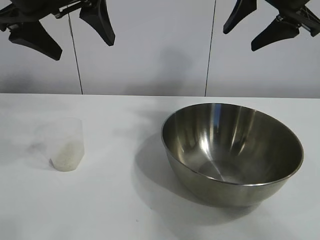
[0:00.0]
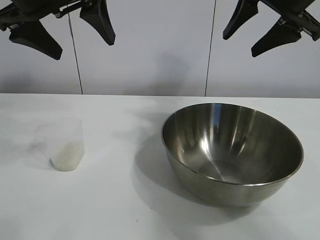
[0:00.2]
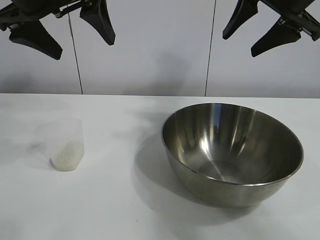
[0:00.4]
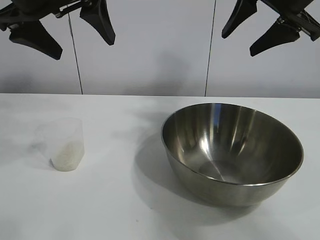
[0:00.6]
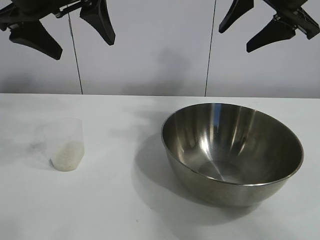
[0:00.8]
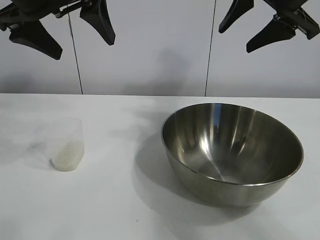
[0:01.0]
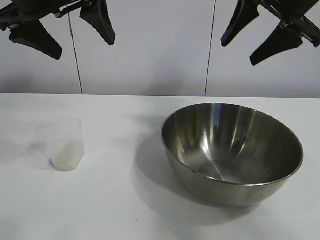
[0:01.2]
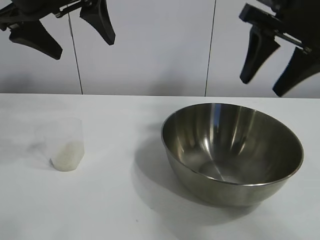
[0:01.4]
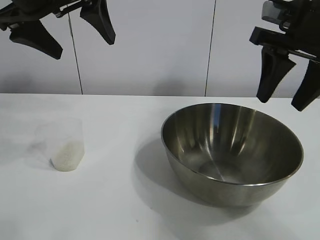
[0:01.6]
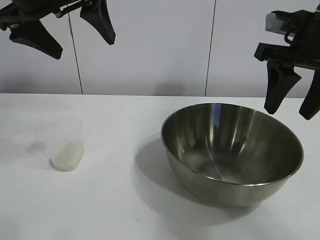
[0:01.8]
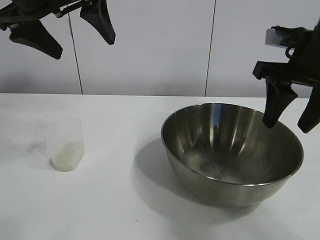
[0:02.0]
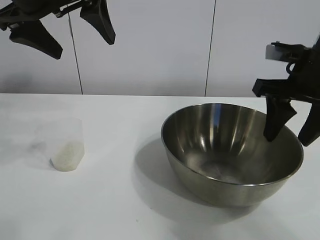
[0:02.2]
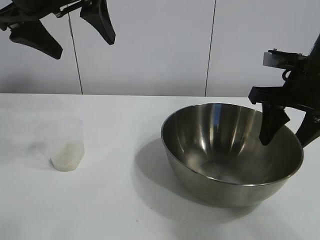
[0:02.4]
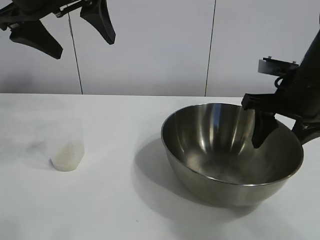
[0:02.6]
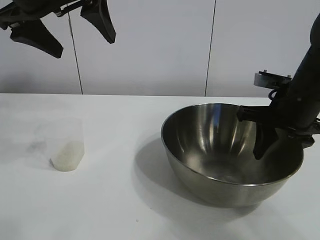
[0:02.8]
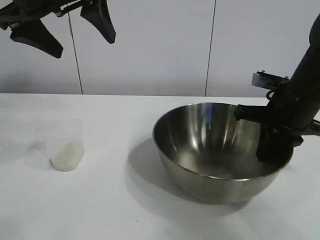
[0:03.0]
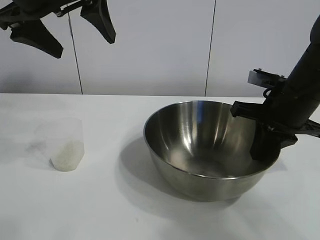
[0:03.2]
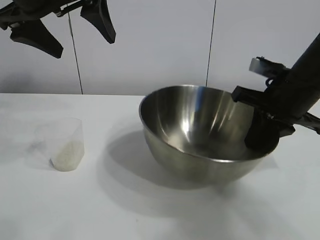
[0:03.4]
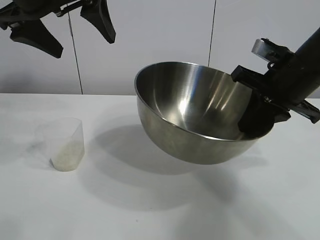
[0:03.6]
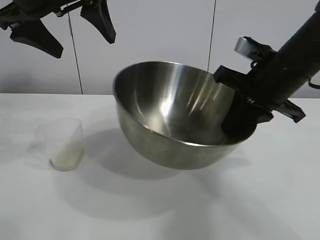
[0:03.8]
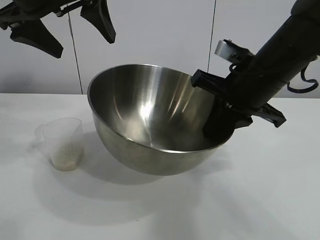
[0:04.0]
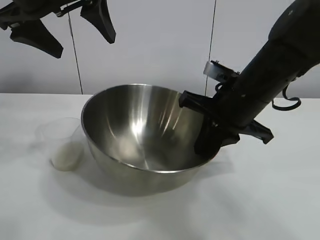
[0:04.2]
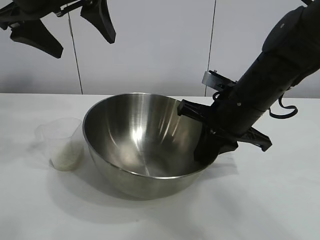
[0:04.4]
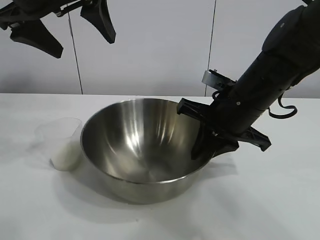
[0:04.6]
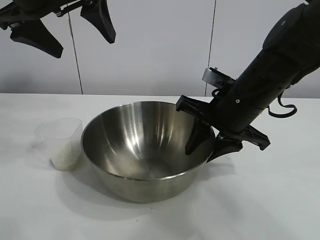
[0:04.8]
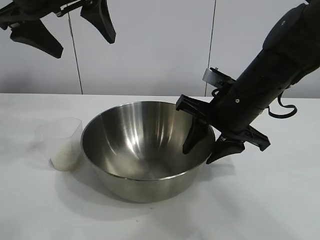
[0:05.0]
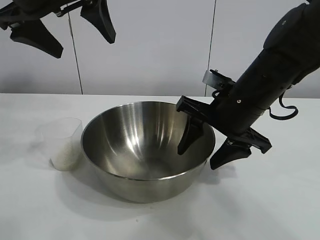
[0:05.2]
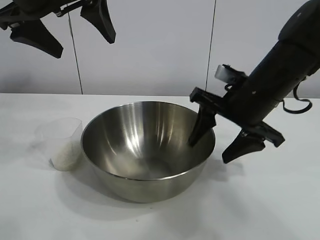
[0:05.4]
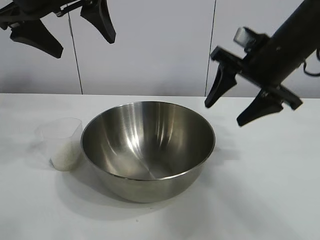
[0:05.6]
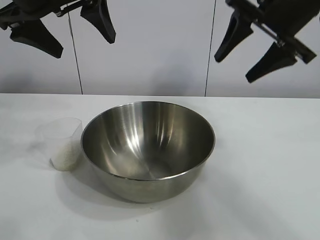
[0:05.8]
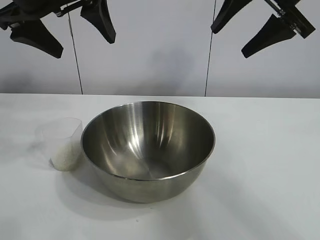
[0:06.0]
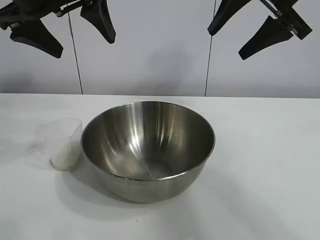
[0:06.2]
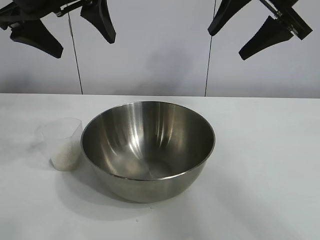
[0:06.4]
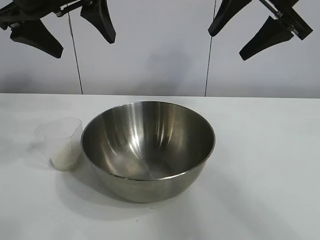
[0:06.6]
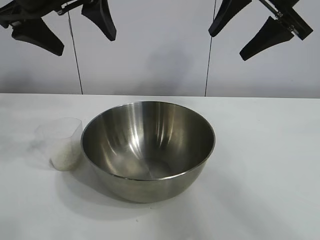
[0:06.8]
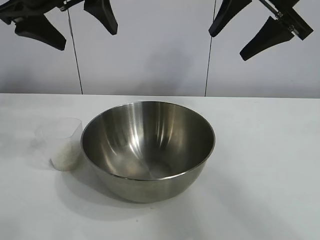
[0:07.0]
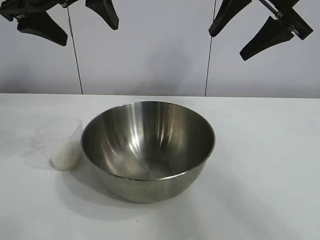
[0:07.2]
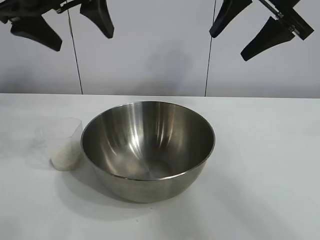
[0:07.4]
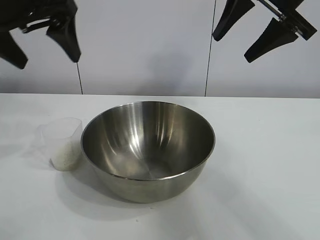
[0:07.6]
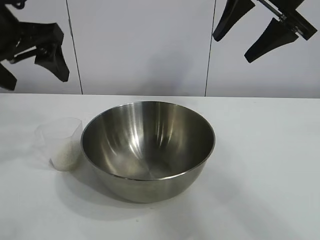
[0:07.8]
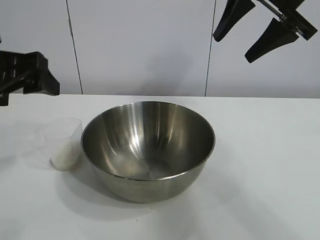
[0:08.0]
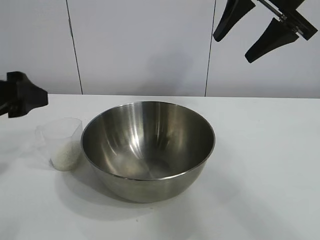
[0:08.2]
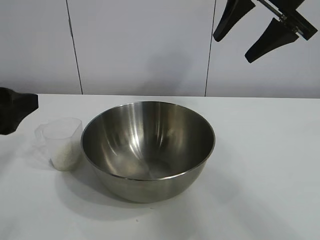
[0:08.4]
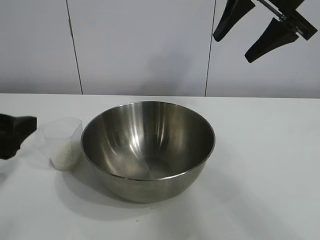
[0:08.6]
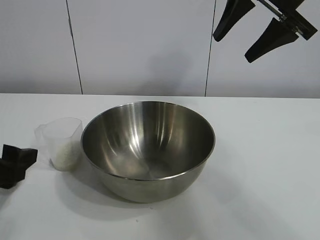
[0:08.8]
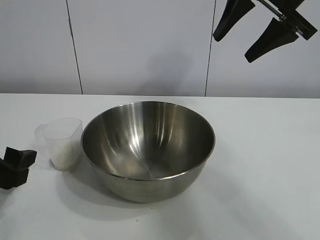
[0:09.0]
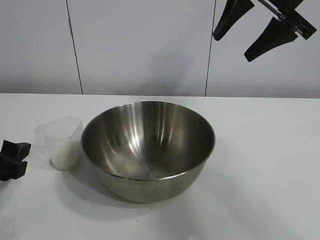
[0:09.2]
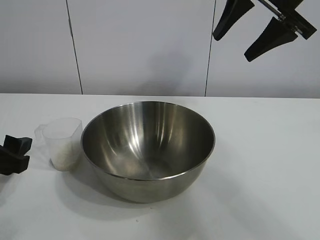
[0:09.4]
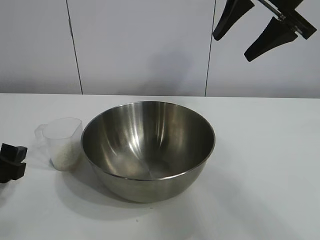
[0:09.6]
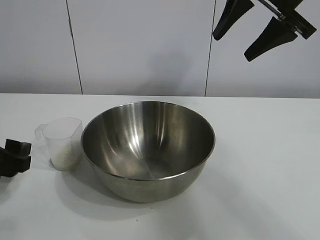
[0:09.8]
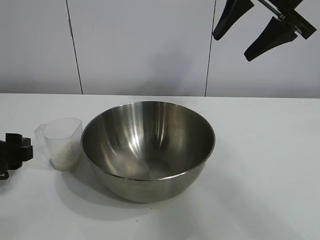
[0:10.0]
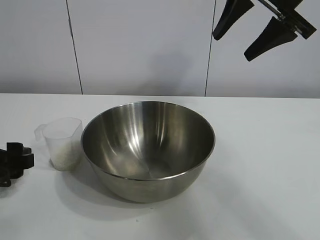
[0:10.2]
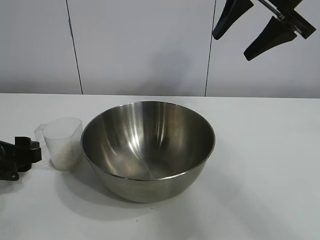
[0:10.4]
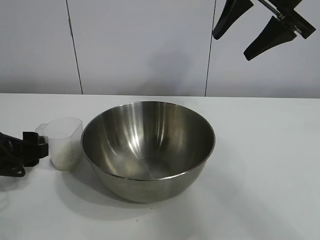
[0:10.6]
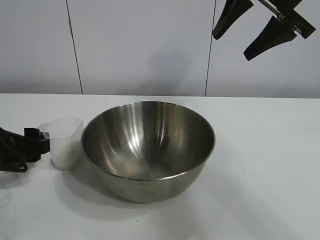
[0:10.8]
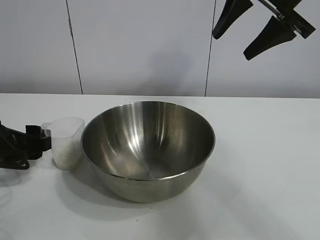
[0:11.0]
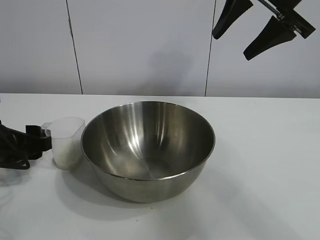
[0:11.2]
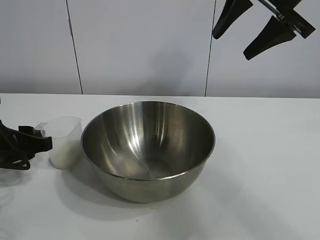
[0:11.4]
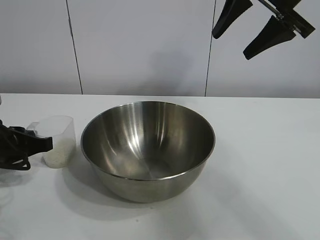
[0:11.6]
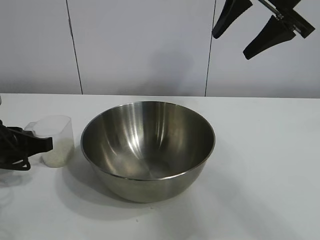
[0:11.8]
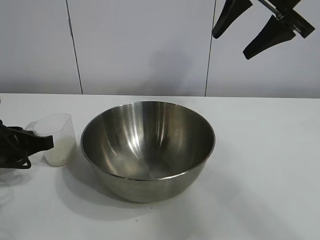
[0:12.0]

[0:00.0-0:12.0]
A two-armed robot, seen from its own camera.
Task of the whole recording: the right gripper grasp the rice container and place it in the center of the table, the left gripper grasp the rice scoop and pour the rice into the rice container.
Step, 0:00.6 to 0:04.8: Move the bowl in the center of view with right gripper.

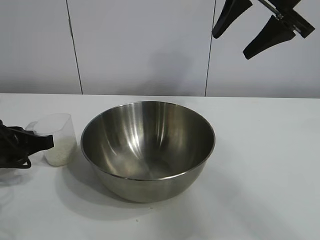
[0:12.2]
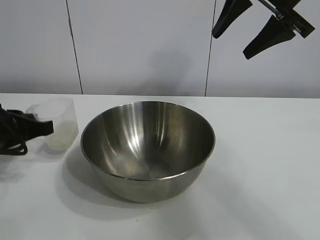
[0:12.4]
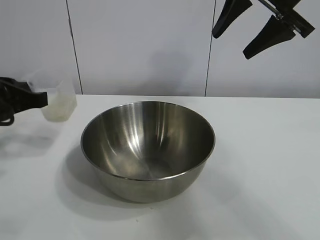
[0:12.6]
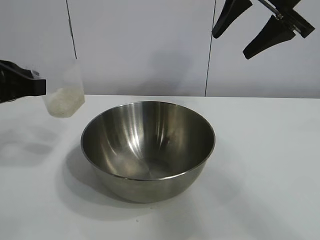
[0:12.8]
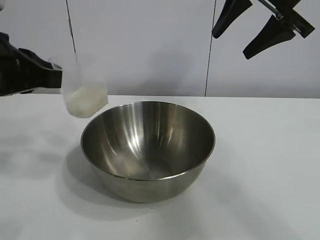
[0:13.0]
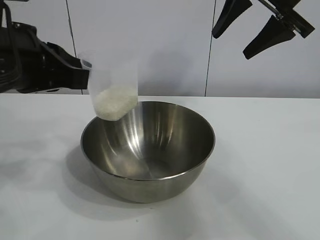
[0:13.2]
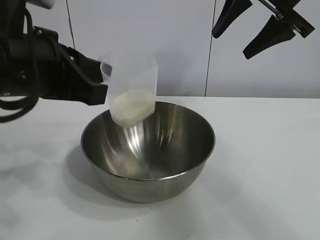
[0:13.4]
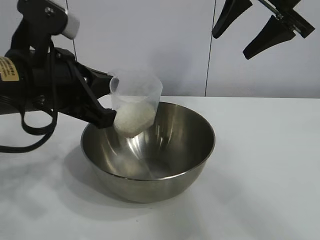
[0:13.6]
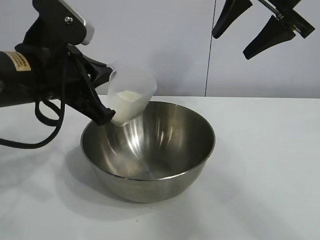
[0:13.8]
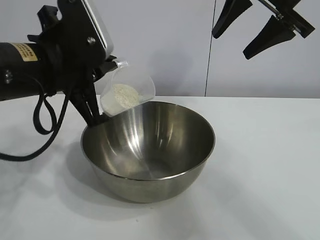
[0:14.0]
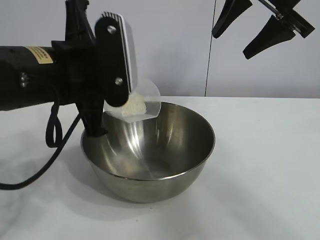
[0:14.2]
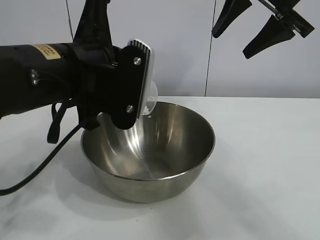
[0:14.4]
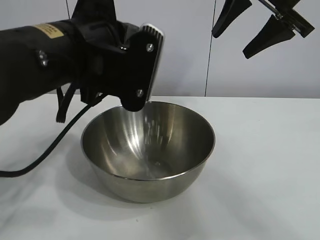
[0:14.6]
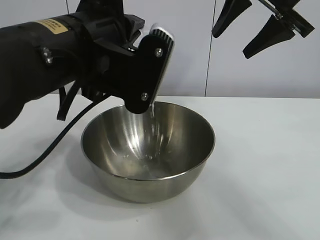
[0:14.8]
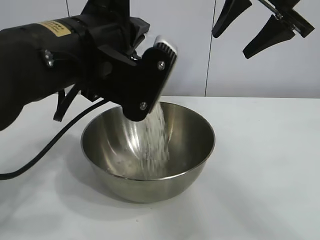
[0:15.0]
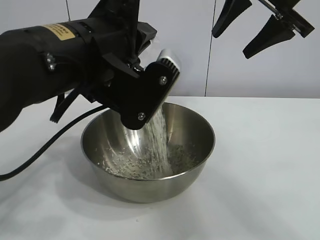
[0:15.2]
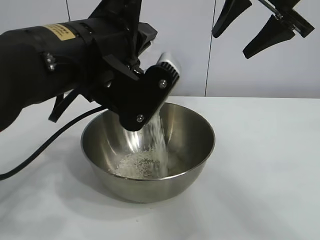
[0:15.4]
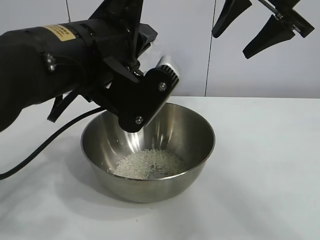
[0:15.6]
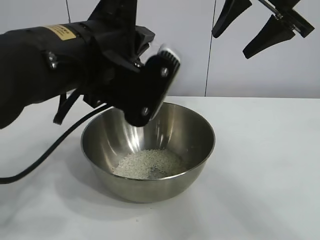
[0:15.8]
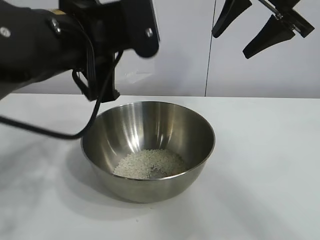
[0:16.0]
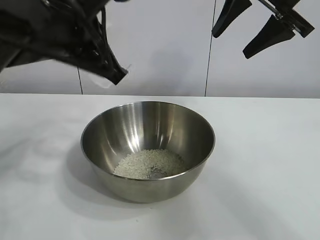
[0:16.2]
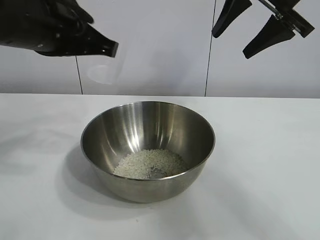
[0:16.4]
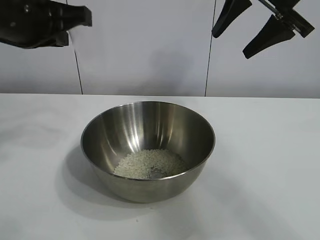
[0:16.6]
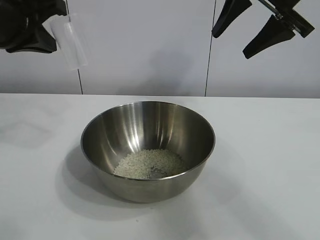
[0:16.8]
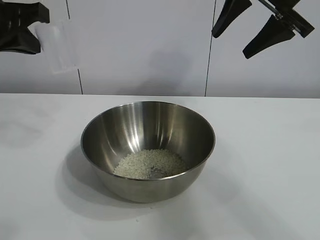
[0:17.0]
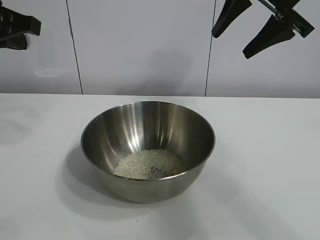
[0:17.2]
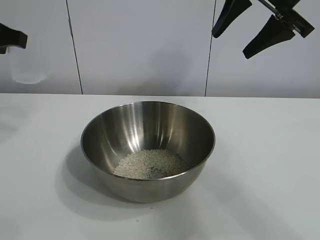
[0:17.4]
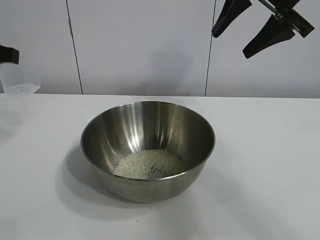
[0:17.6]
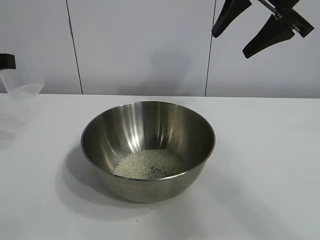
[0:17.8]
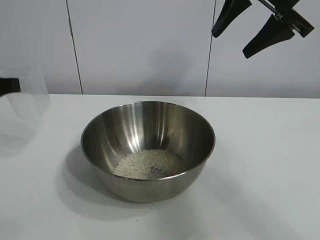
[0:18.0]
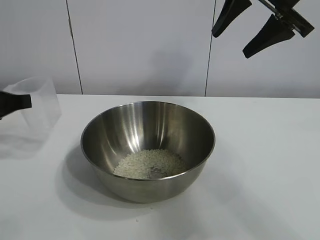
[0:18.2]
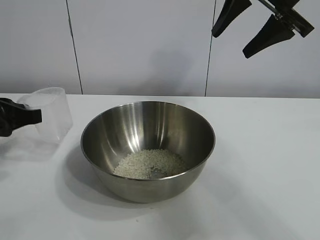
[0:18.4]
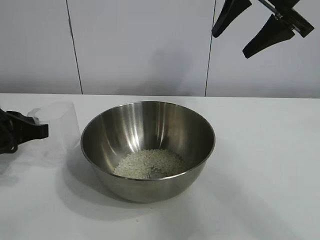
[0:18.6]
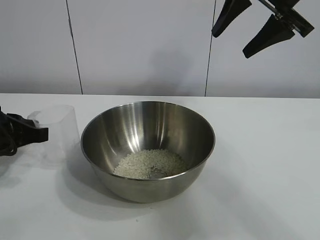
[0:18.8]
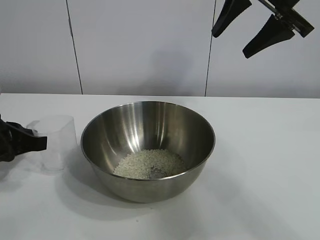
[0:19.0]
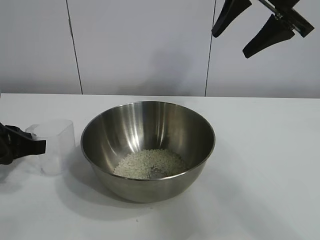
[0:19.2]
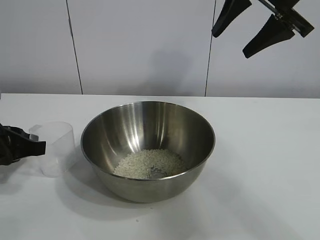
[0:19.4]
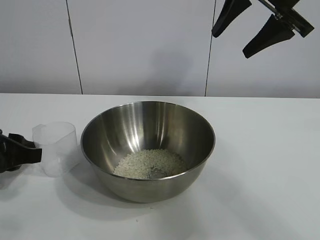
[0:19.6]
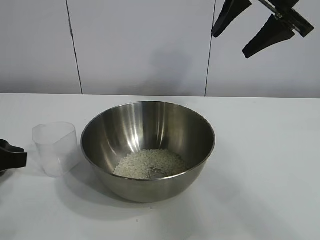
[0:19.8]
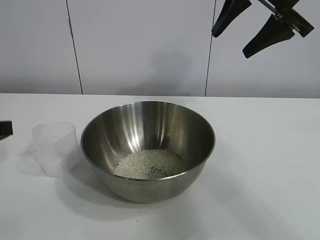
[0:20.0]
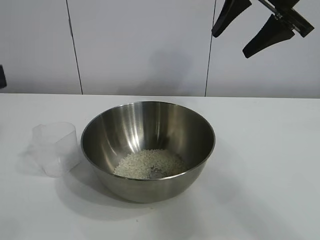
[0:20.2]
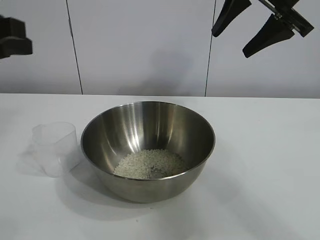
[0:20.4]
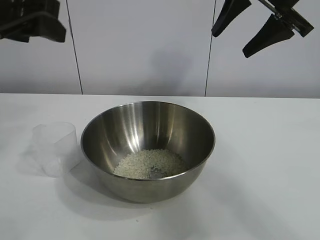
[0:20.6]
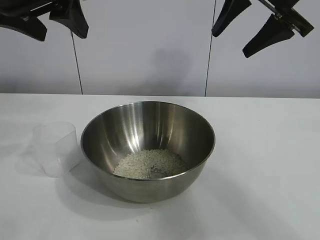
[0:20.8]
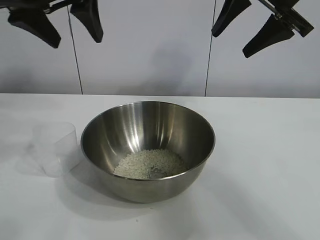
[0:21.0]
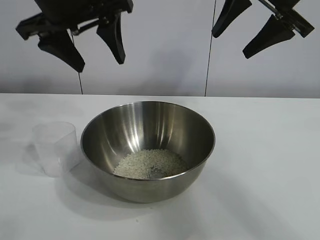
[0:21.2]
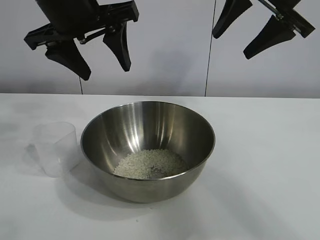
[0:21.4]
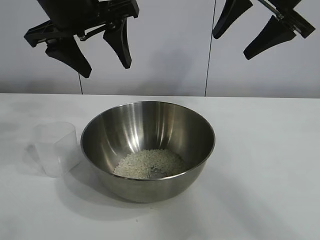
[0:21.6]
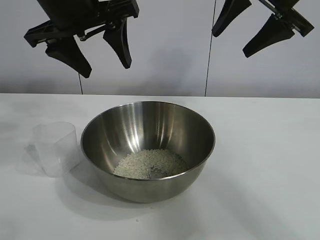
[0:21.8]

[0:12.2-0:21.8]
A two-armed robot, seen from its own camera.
Task of the whole recording: the right gripper grasp the rice container and place it in the center of the table, the left gripper grasp the rice scoop and pour the rice into the rice container.
Step, 0:12.2 to 0:15.8: Pour the rice from the cup into the bowl with the left gripper.
Step, 0:16.0 to 0:19.4: Place the cup on the table with the left gripper.

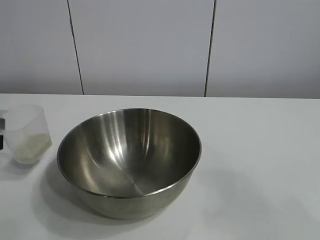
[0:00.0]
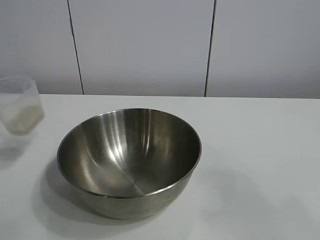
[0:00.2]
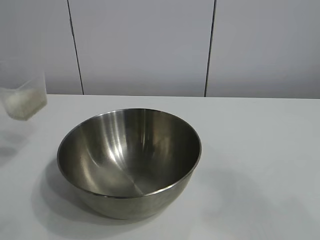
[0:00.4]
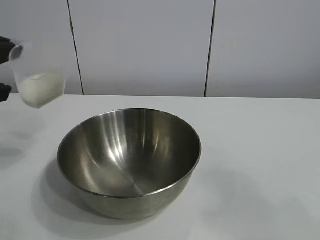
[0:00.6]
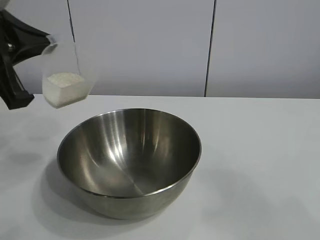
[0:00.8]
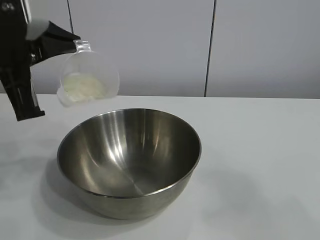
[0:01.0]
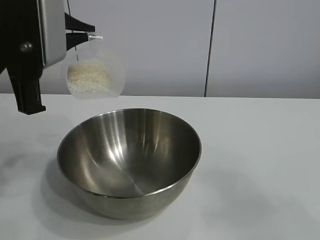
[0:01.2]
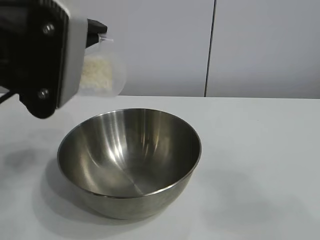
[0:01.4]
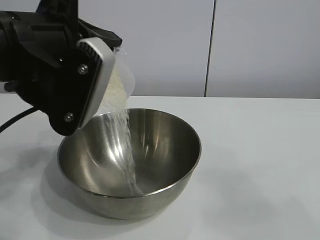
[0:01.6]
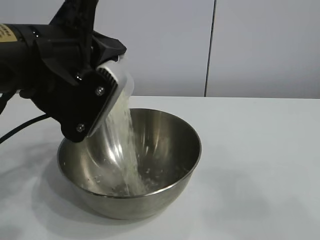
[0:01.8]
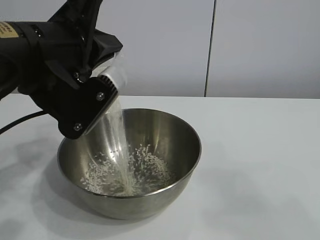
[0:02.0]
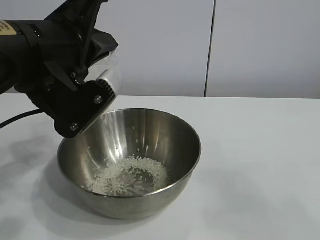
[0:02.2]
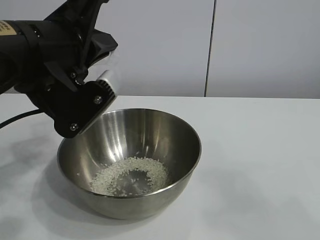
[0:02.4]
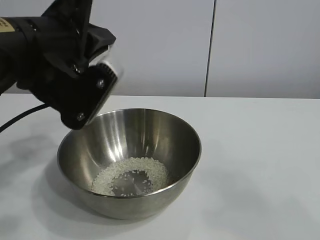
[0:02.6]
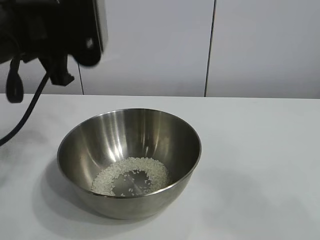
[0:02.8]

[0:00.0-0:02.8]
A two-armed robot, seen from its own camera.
Task of the whole recording: the right gripper grasp the rice container and place it in the center of the table, the left gripper grasp the rice scoop and pour the rice into the rice container.
Step, 0:00.0 to 0:02.6: Pour the rice from the cup into the bowl with the left gripper.
